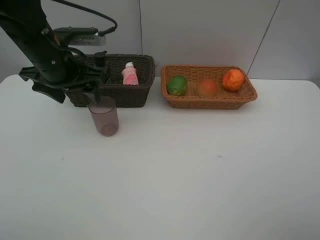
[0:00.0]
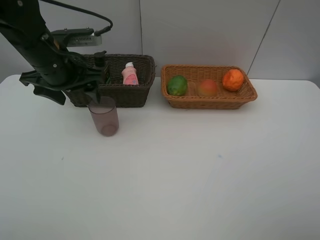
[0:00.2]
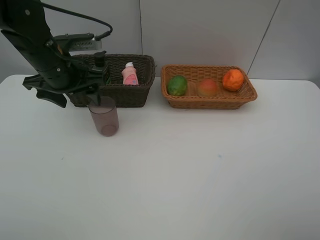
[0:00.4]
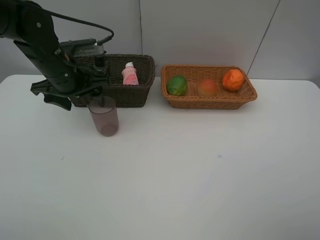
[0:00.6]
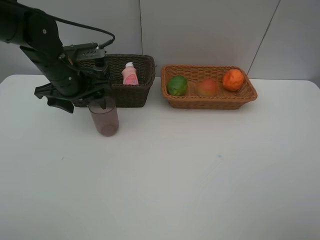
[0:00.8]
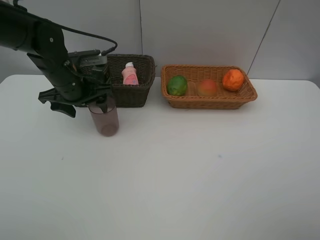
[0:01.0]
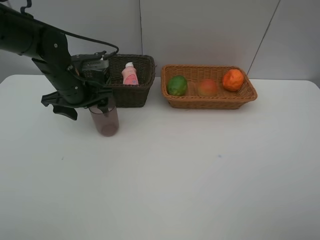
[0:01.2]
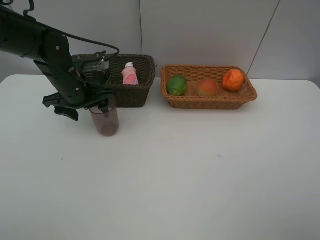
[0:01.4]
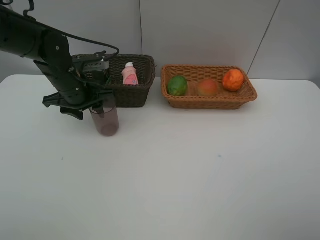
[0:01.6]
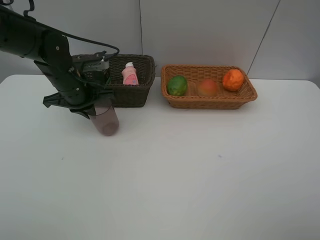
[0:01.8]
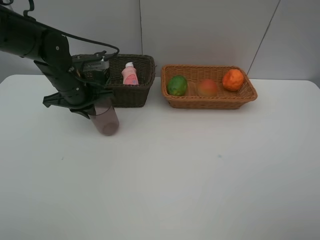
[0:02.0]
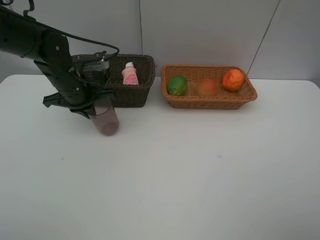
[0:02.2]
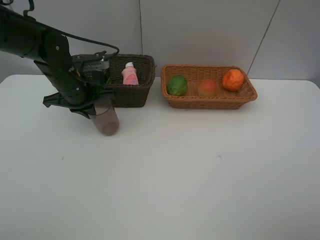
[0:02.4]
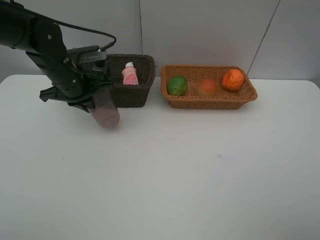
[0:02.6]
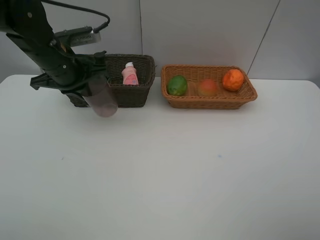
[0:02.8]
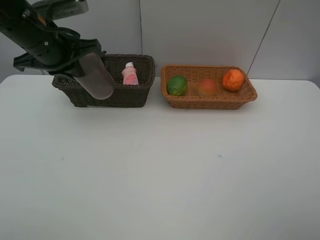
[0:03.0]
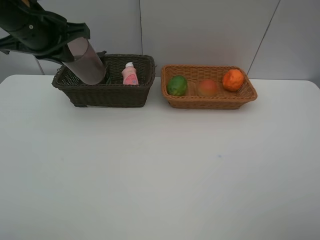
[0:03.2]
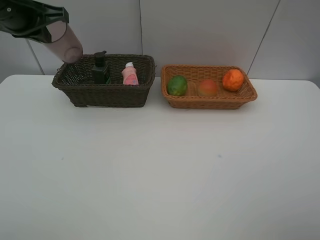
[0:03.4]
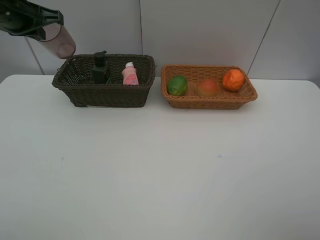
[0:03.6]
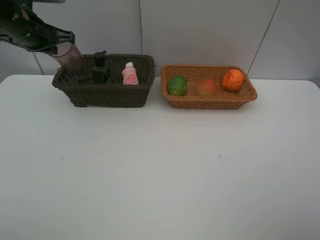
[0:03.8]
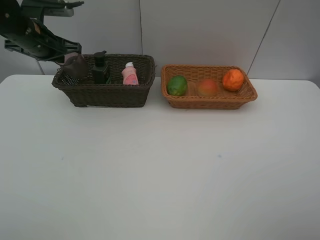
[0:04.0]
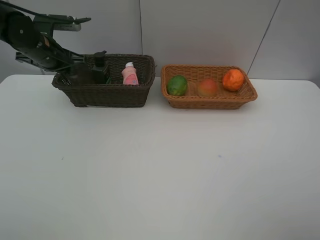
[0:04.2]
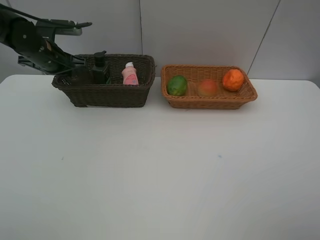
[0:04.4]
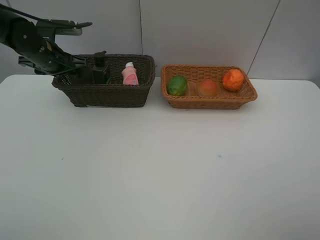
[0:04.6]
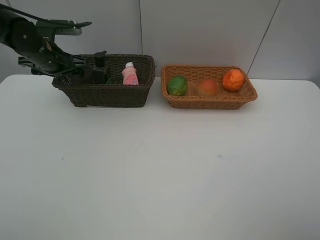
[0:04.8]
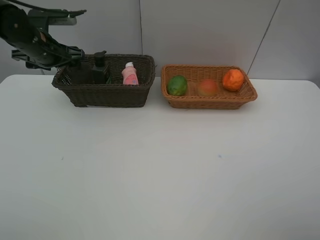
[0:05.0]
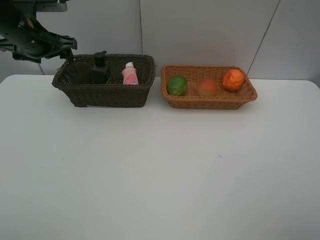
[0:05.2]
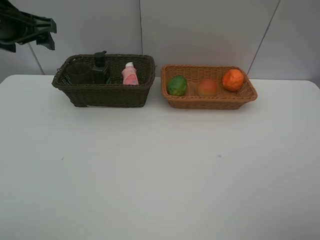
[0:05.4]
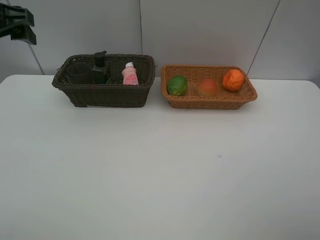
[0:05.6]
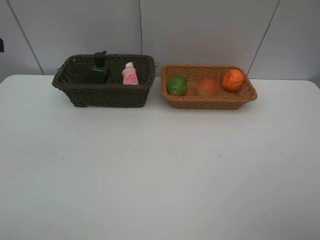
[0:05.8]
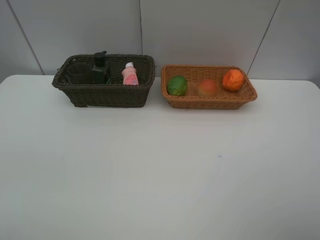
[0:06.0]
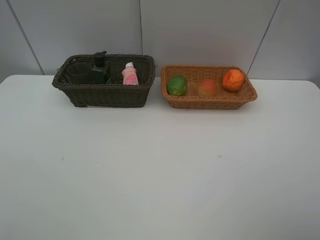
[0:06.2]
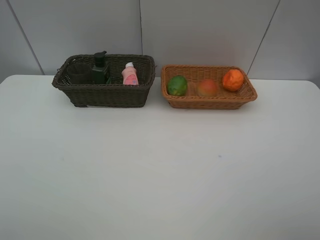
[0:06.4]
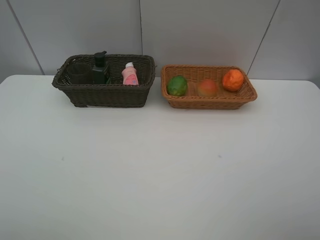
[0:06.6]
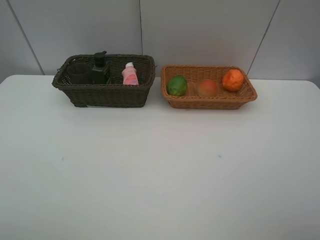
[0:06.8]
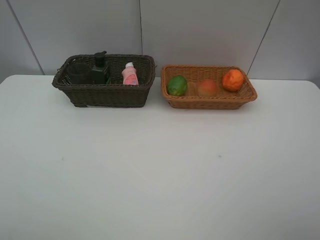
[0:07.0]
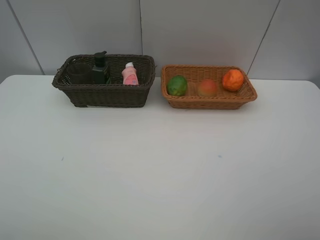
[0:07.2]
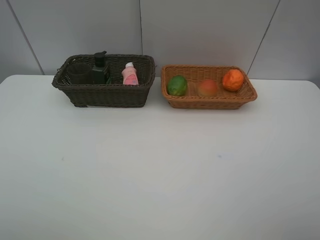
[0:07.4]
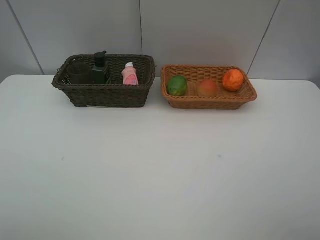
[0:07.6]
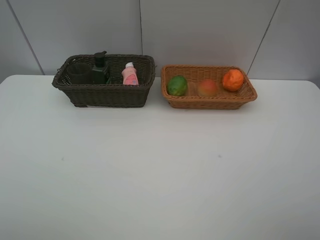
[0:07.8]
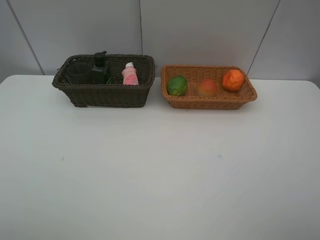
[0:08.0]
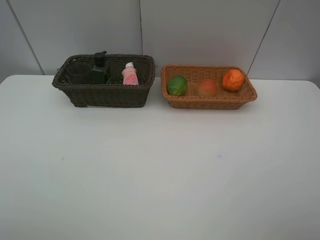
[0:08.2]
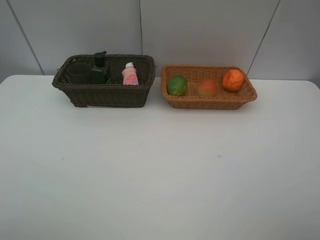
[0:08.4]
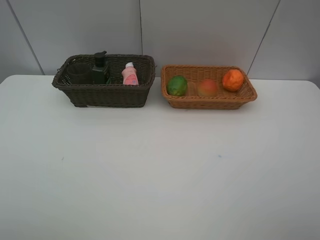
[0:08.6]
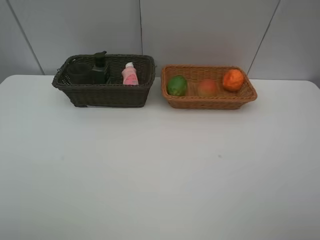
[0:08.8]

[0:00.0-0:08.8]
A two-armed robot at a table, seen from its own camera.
Task of the whole recording: place multiple objects separately in different baskets.
0:00.0 to 0:01.4: The left gripper heads downward, covering approximately 10 cm.
0:01.4 to 0:03.0: The left gripper moves upward, roughly 10 cm, and closes its fingers.
0:03.0 to 0:04.4: The left gripper shifts some 15 cm forward, downward and to the left.
0:04.4 to 0:05.8: The left gripper goes about 25 cm backward and upward, and opens up.
0:07.4 to 0:08.8: The two grippers keep their place.
